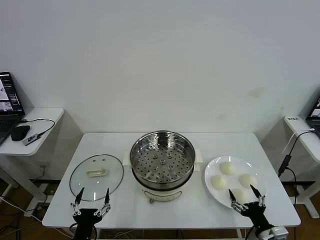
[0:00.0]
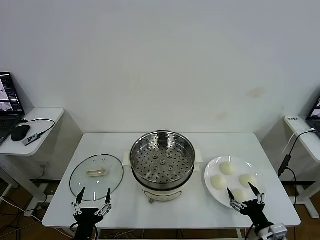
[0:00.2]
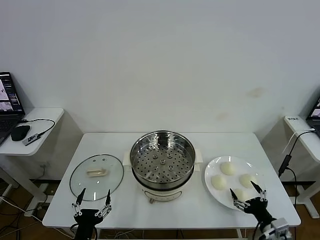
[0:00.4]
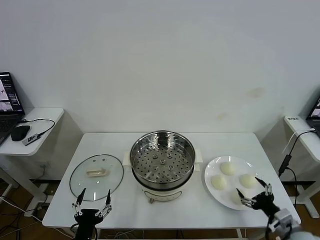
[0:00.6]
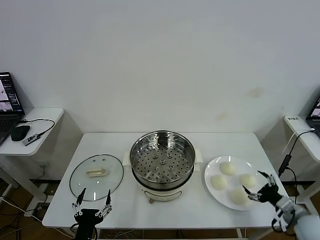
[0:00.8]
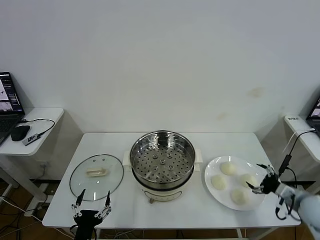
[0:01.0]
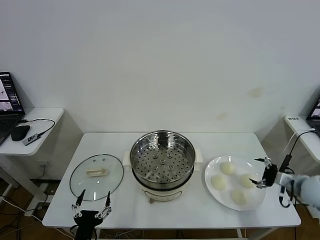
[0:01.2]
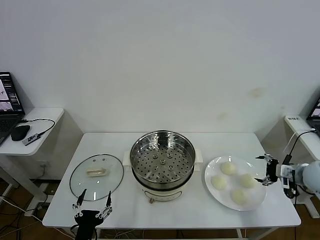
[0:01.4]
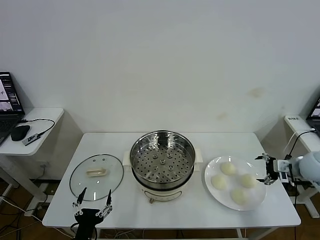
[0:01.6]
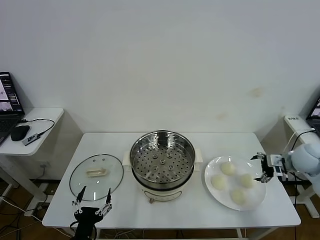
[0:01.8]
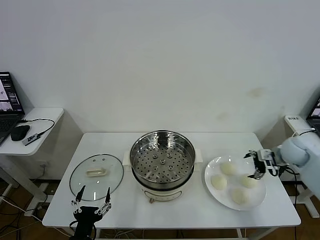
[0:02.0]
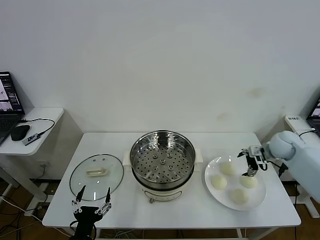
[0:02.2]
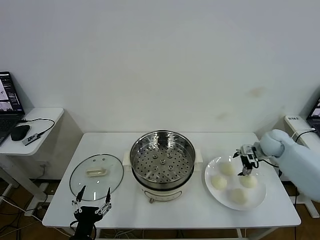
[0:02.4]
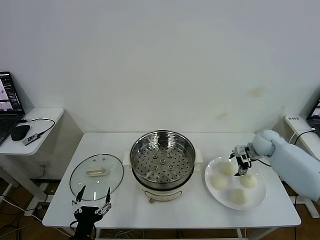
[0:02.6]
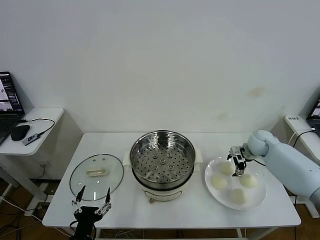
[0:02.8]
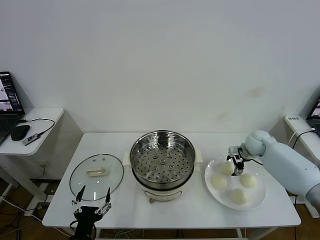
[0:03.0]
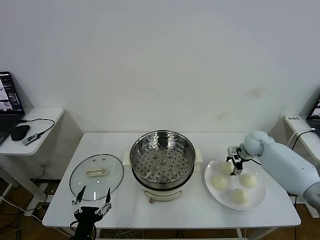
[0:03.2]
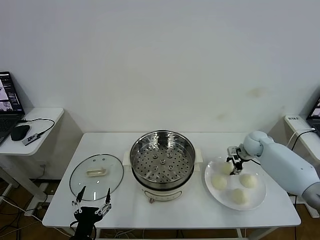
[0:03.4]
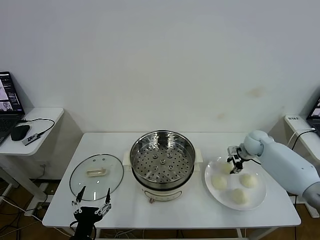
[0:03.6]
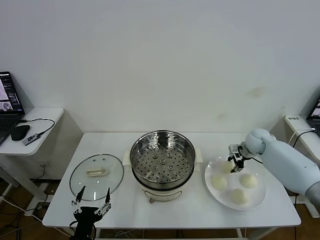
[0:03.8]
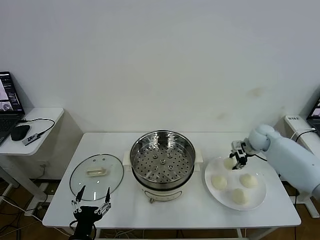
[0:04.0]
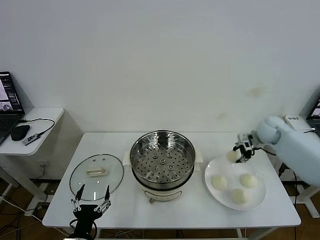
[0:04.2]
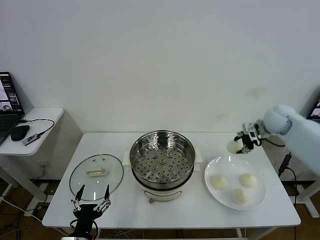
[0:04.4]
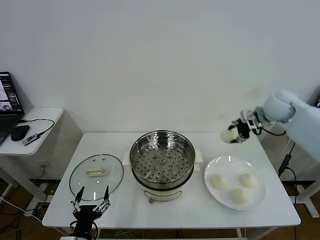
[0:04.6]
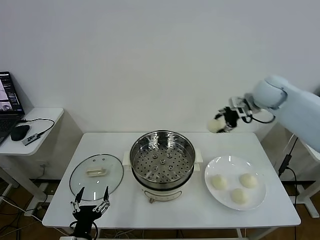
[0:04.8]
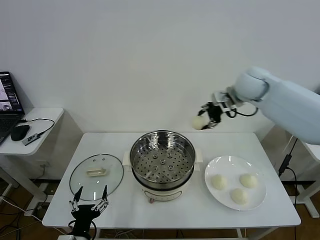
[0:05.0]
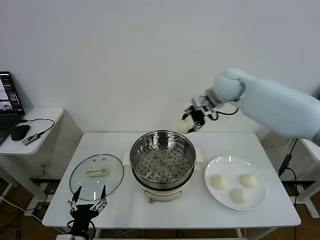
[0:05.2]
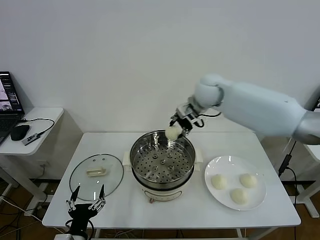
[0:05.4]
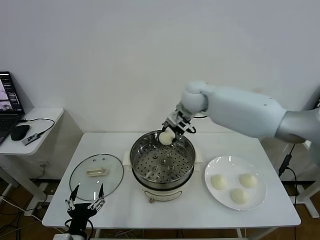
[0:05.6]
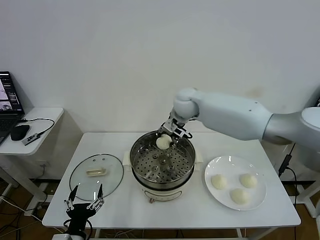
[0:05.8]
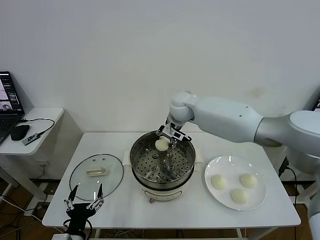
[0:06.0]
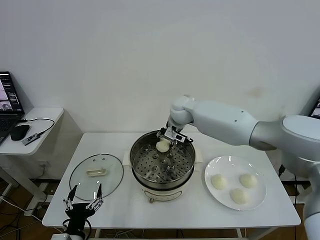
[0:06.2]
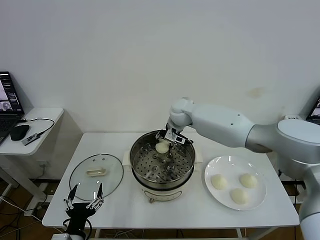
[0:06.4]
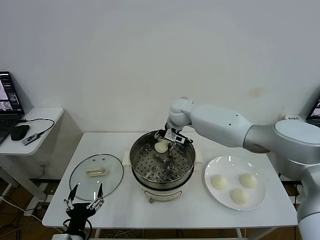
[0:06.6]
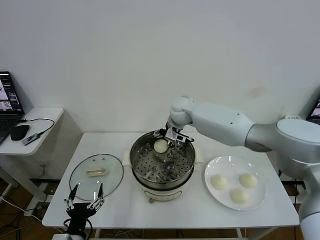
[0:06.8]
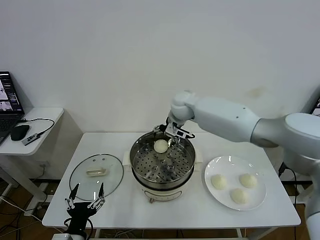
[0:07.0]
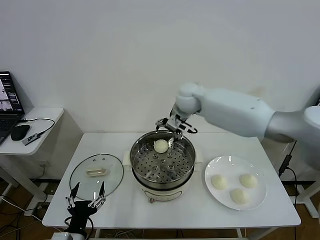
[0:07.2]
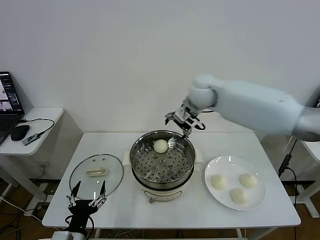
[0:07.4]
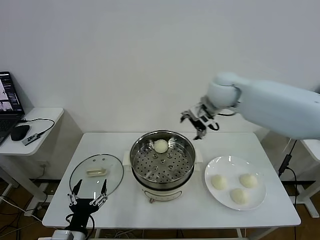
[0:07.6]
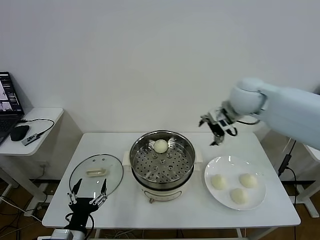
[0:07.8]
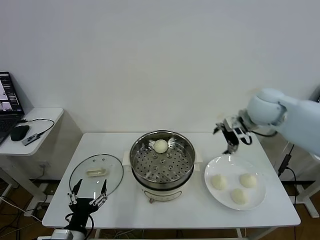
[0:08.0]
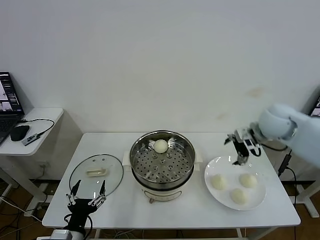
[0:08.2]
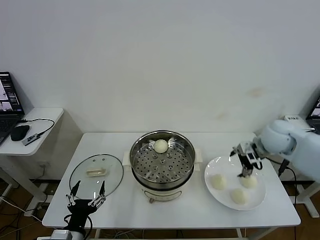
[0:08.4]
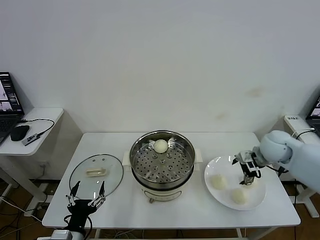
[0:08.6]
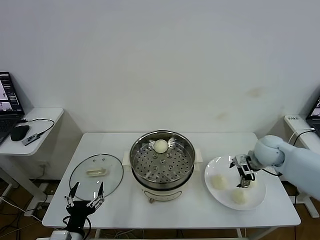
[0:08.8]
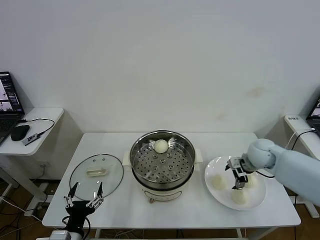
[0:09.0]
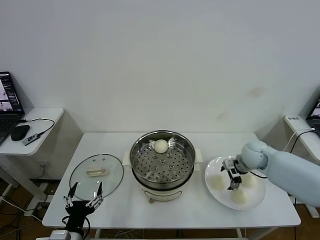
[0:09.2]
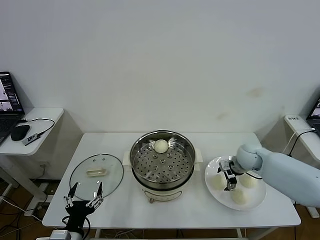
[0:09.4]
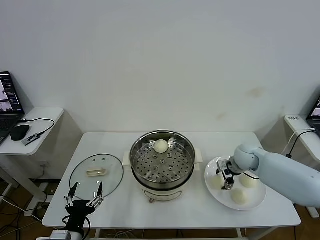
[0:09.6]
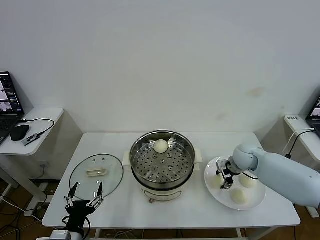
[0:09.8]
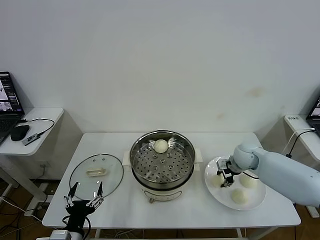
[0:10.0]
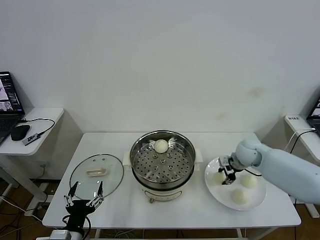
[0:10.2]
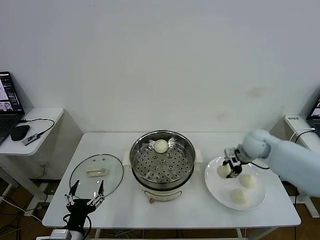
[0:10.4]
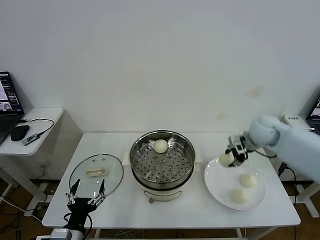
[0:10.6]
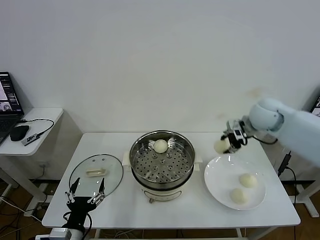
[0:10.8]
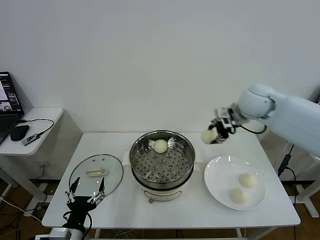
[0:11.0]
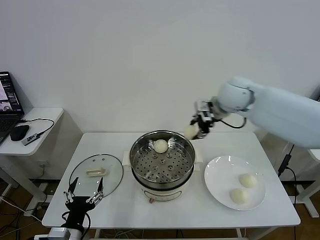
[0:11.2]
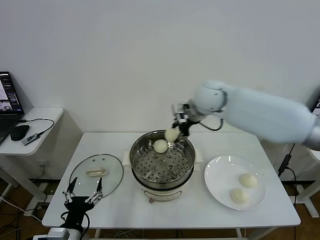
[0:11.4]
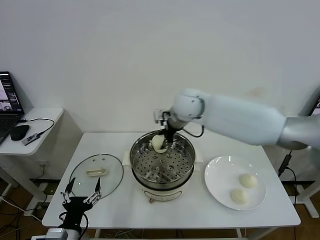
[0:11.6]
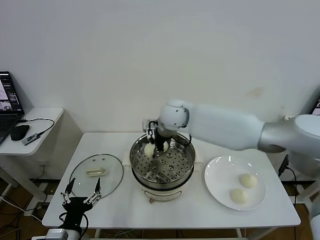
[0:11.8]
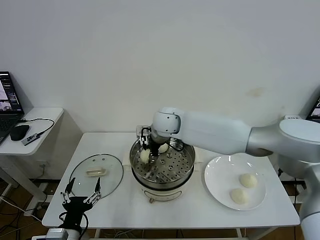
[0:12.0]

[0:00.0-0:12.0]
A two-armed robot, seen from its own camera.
Task of the whole recording: take steamed baozi put them in steamer then cover it.
Step, 0:00.0 to 0:03.4: Grasp the baozi in the plate with right gripper.
Step, 0:03.6 to 0:06.6: Place the baozi on the steamer with right gripper.
Step, 0:06.8 to 0:09.8: Grasp the baozi in the plate with right gripper.
0:01.6 to 0:03.0: The right gripper moves forward, to the left and downward, approximately 20 cm.
0:03.0 to 0:04.4: The right gripper is displaced upward by roughly 15 cm, and closes its fingers.
0:04.4 to 0:06.0: The right gripper shifts some 30 cm to the left.
0:06.0 to 0:07.6: The right gripper heads to the right, upward and backward, covering some 15 cm, and opens.
0:07.6 to 0:09.0: The right gripper goes about 25 cm downward and to the right.
0:09.0 to 0:10.4: The right gripper closes its fingers.
0:10.4 to 0:12.0: The right gripper heads to the left, covering some 30 cm.

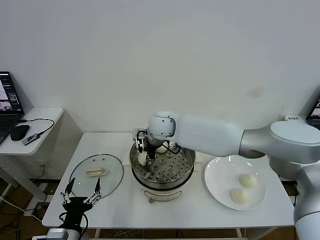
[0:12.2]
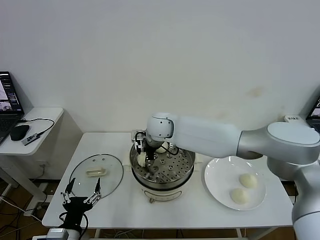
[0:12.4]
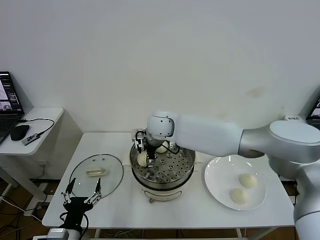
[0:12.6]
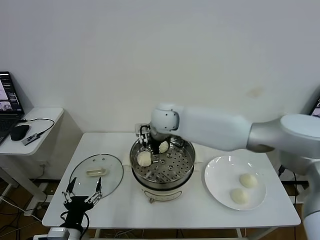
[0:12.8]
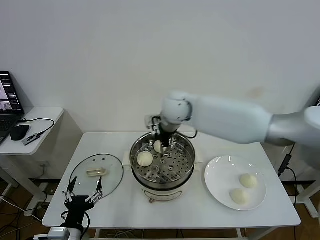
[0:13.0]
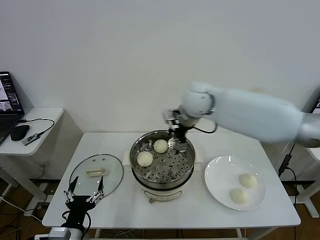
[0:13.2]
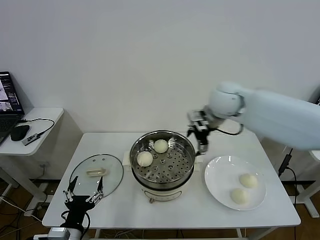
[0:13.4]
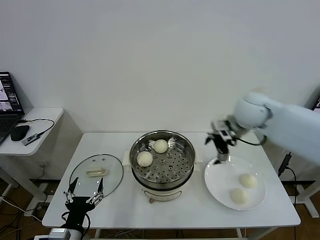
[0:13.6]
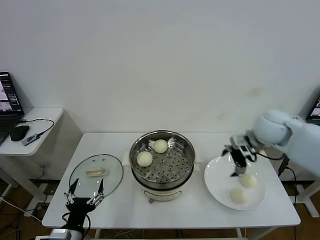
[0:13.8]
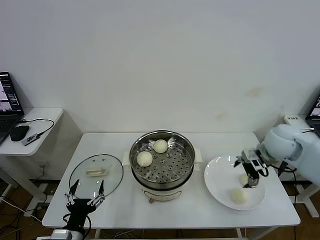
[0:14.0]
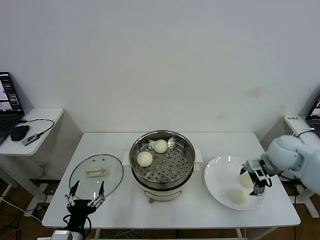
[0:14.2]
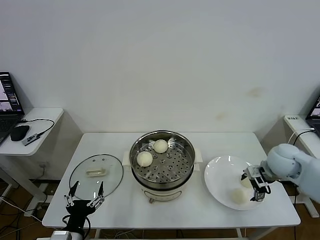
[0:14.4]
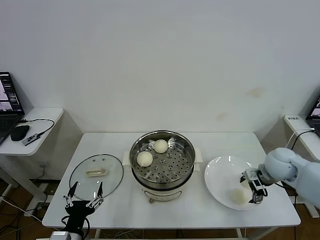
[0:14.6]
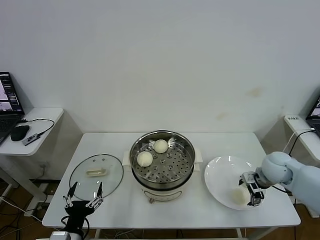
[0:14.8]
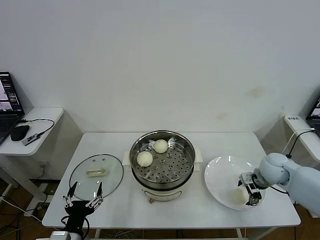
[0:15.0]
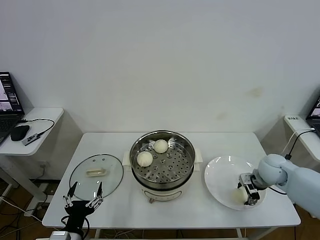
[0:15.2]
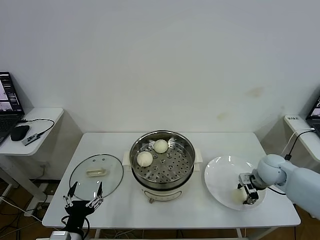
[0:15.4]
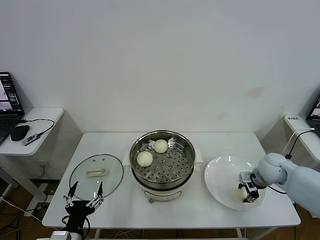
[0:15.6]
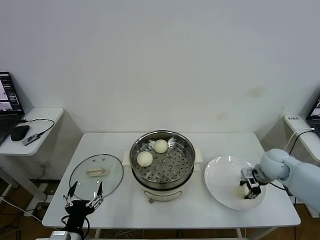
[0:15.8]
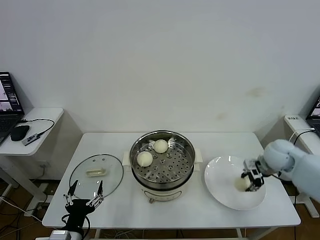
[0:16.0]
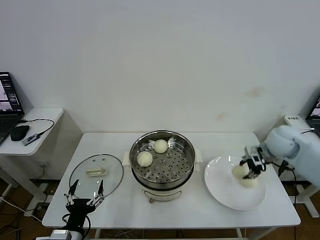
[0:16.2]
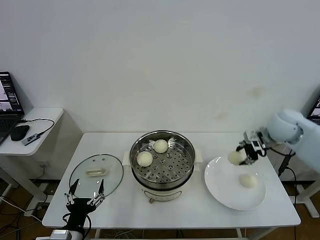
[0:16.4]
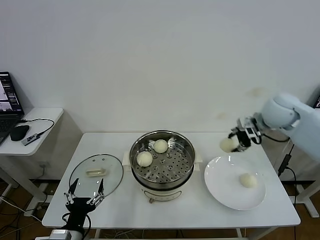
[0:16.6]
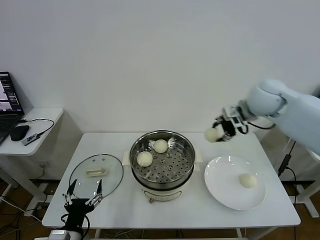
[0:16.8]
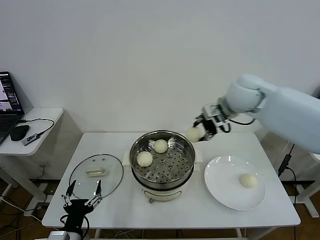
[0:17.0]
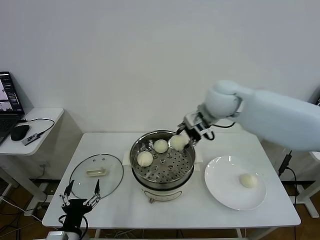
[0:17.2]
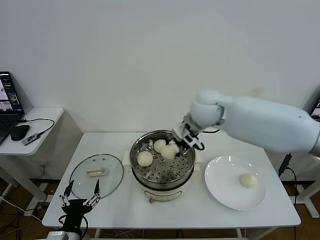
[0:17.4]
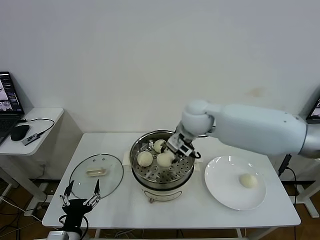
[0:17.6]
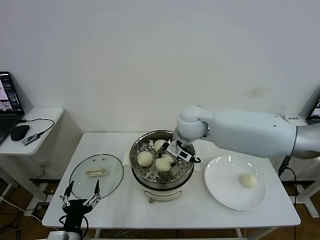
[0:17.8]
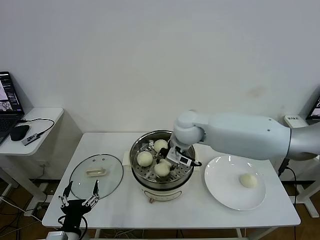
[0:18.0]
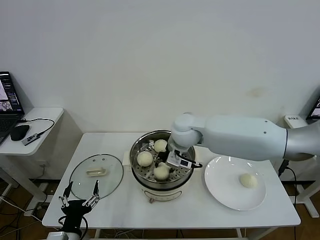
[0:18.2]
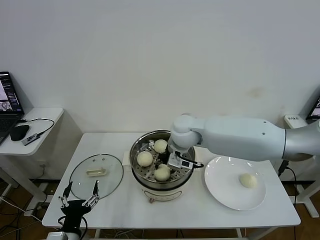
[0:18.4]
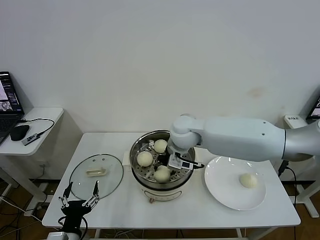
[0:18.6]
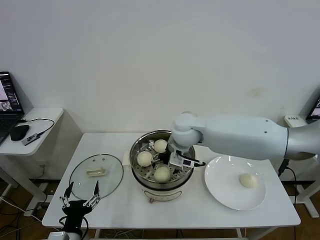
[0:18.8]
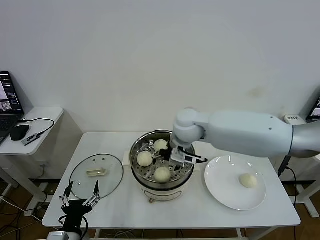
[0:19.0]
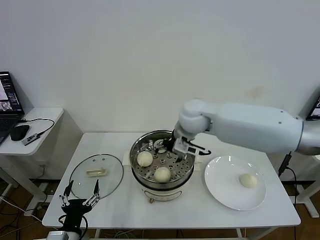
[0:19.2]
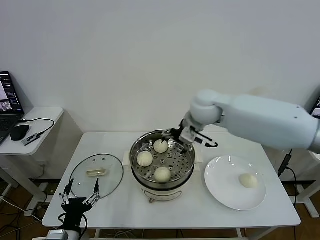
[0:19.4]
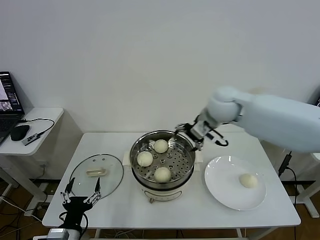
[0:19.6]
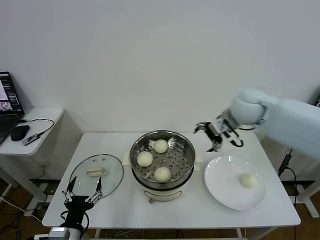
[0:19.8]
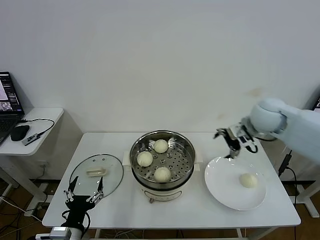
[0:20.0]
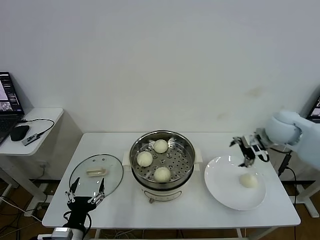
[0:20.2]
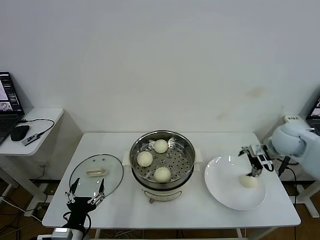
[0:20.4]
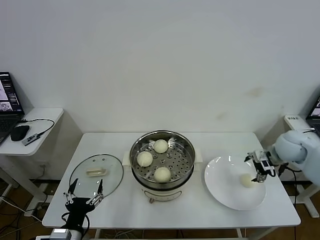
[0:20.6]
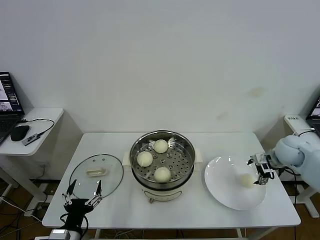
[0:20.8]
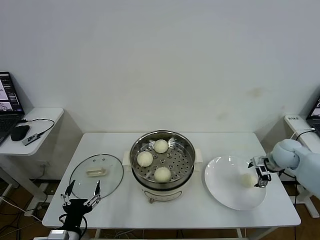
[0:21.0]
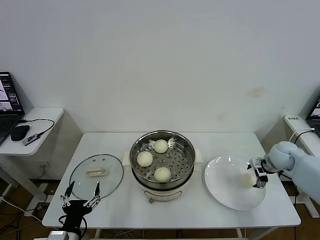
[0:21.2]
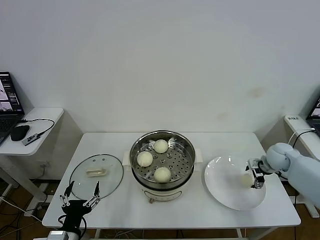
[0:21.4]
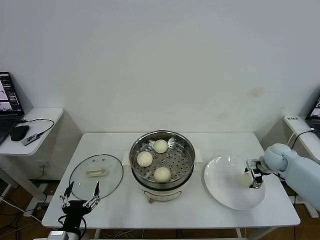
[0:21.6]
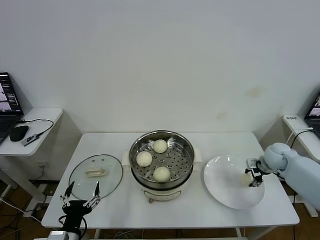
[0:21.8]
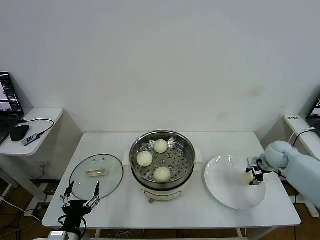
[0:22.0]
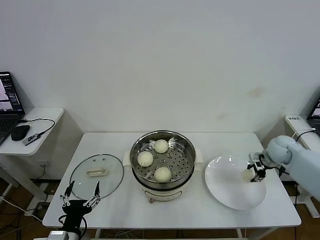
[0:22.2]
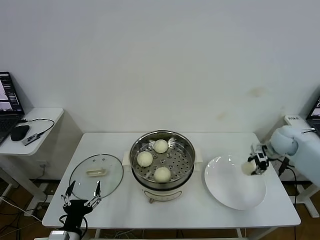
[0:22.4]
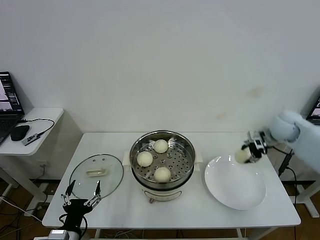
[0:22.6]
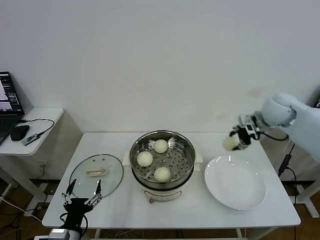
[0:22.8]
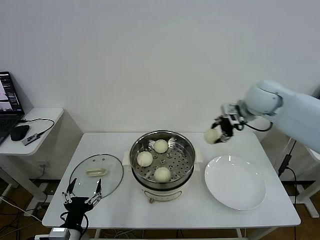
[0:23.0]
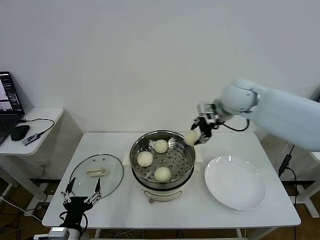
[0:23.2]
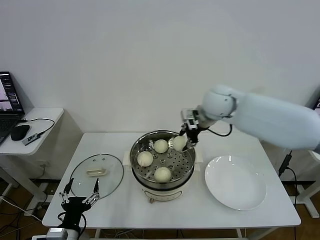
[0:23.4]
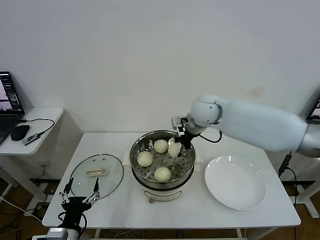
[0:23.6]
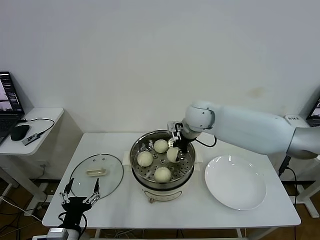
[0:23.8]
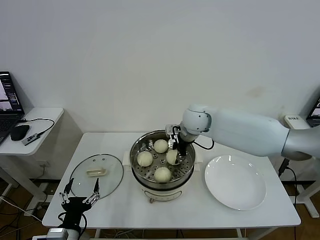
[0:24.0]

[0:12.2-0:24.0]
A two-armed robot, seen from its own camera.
Task of the whole recording: take steamed baozi put them in steamer then cover it.
Step, 0:12.6 to 0:15.4: Grasp the baozi in the plate with right gripper.
Step, 0:15.8 to 0:18.6: Place the baozi on the steamer with right gripper.
Step, 0:18.8 to 0:21.8: Grasp the baozi in the plate with right gripper.
0:12.2 to 0:13.6: The right gripper moves to the right, about 25 cm, and opens its fingers.
0:13.6 to 0:15.2: The right gripper shifts about 25 cm downward and to the right, and closes up.
0:15.2 to 0:16.6: The right gripper travels upward by roughly 20 cm, and closes its fingers.
0:16.6 to 0:18.2: The right gripper goes about 25 cm to the left.
0:18.2 to 0:19.6: The right gripper shifts some 15 cm to the right and upward, and opens.
0:19.6 to 0:21.0: The right gripper travels to the right and downward by some 30 cm.
0:21.0 to 0:22.6: The right gripper is displaced upward by roughly 10 cm, and closes.
0:22.6 to 0:24.0: The right gripper shifts about 30 cm to the left.
